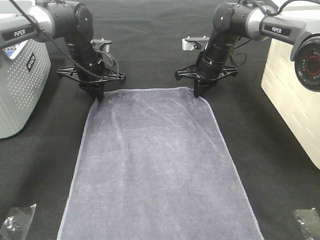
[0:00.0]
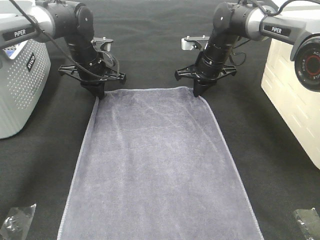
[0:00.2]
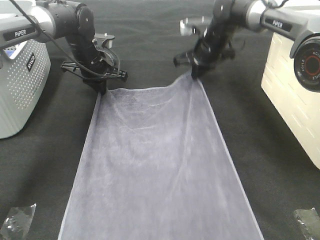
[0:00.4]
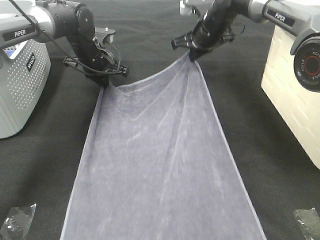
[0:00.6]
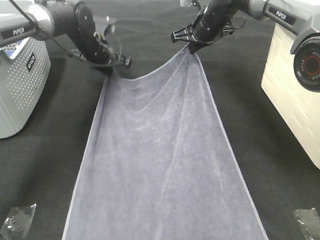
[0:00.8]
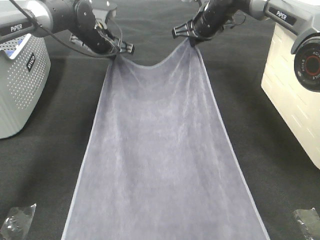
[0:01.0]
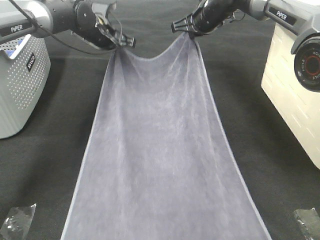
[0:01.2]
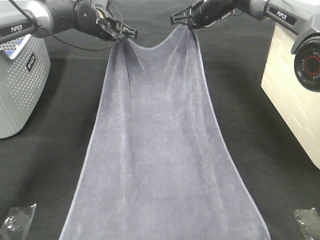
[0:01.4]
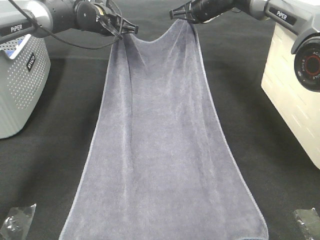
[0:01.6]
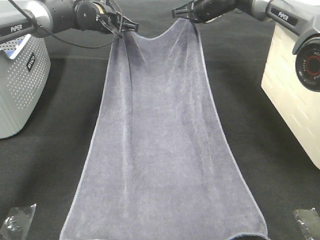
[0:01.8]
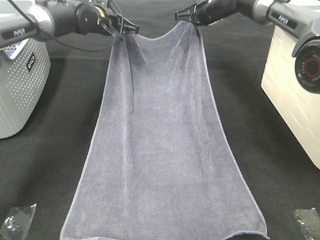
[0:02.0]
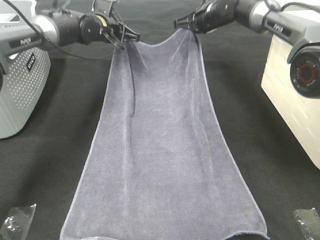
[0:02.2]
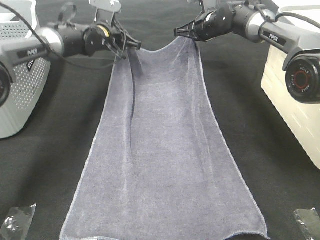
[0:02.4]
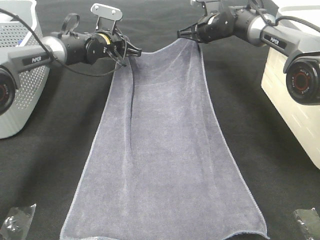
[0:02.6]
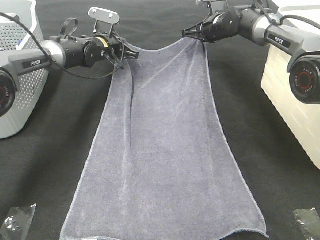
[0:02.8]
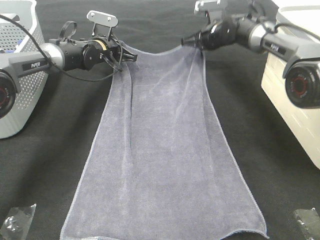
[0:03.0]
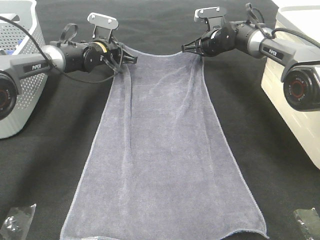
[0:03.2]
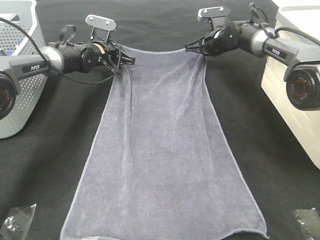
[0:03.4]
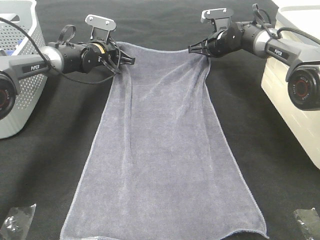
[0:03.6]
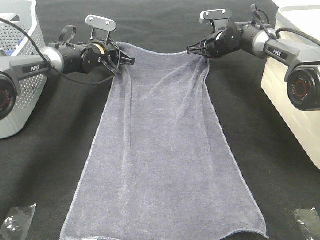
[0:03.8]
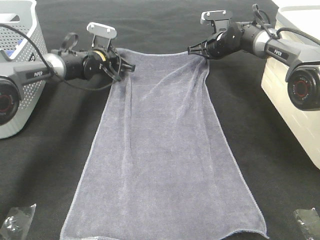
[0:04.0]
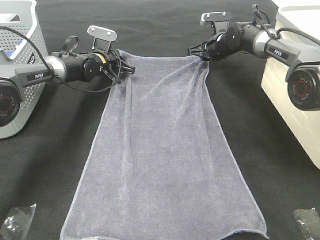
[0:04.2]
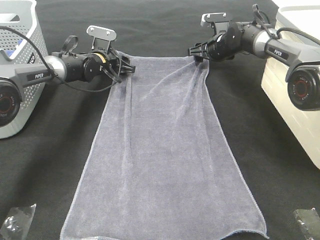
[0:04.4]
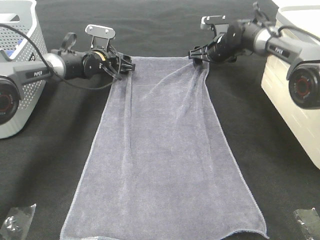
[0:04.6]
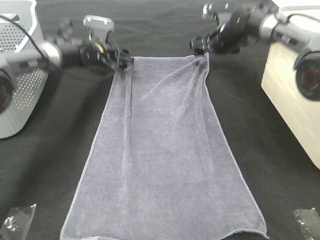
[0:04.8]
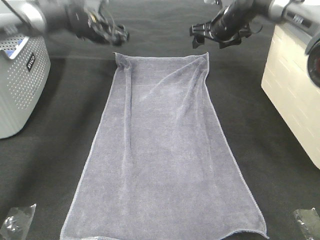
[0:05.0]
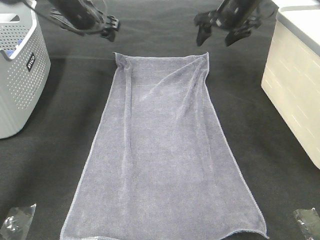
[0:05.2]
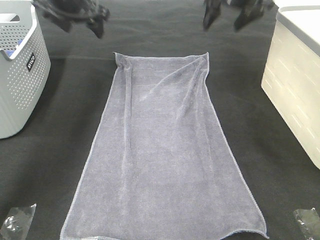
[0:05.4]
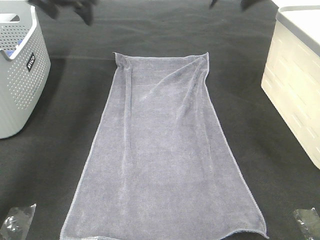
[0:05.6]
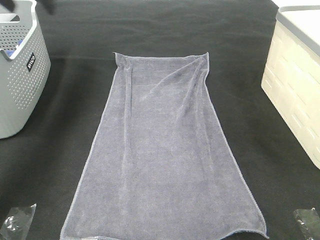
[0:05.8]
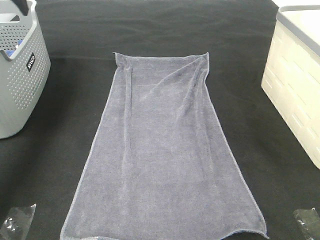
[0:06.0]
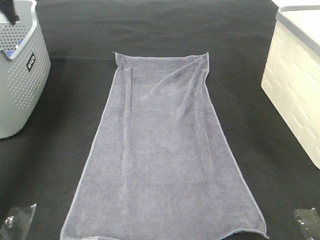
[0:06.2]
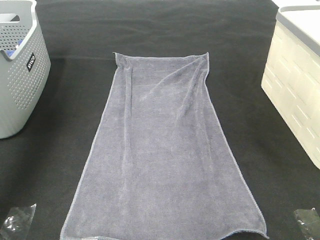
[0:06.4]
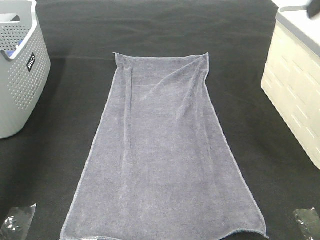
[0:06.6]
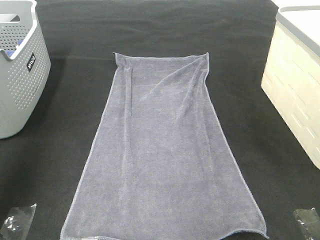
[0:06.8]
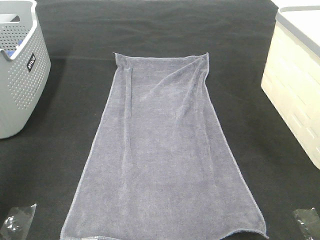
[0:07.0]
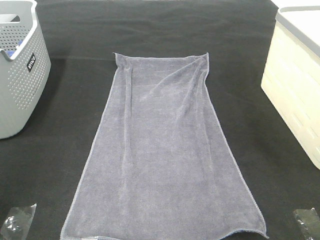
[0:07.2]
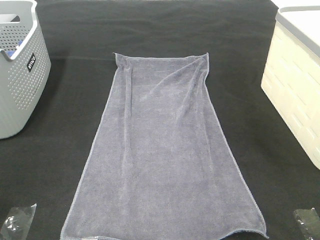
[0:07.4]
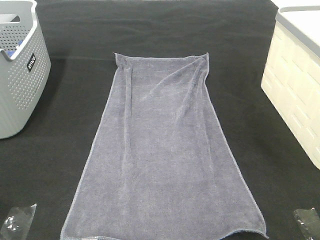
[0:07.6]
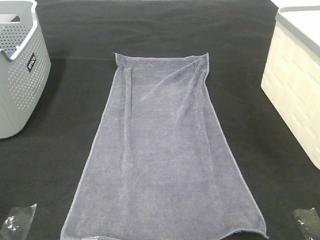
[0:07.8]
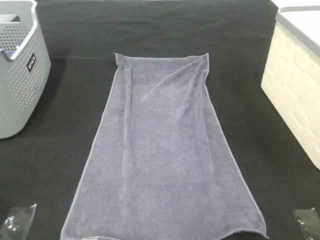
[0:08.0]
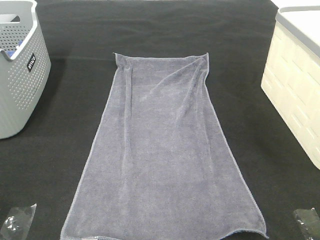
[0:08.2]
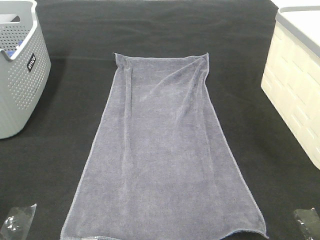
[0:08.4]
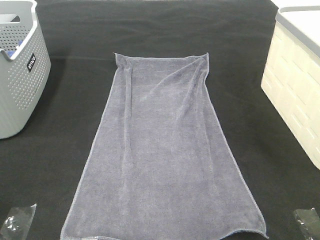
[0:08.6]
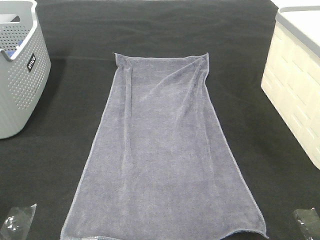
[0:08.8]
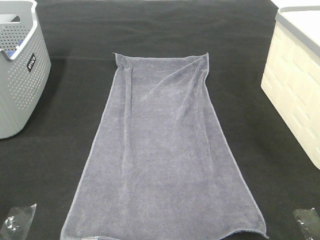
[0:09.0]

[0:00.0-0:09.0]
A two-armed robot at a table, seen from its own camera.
Task of the whole recording: Remove the towel and place it.
0.0 to 1.6 s: The grippers both shift upward and forward by about 10 cm.
1.6 to 3.0 s: Both grippers move downward, approximately 10 cm.
3.0 to 4.4 s: The right gripper opens its fingers. Meanwhile the left gripper opens.
4.4 to 6.0 s: The right gripper goes some 35 cm upward and backward. The left gripper is displaced upward, to the left and backward by roughly 35 cm.
6.0 to 7.6 s: The two grippers go some 50 cm backward.

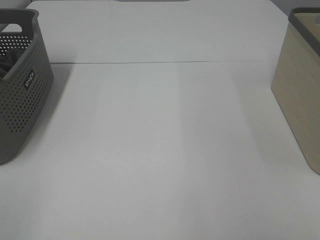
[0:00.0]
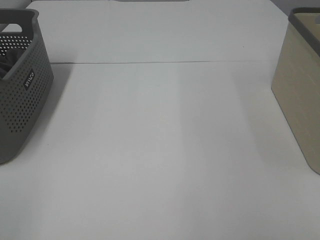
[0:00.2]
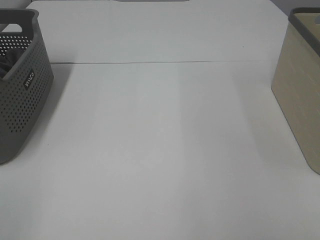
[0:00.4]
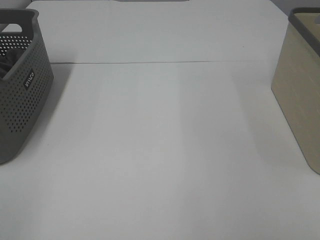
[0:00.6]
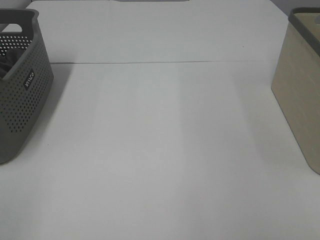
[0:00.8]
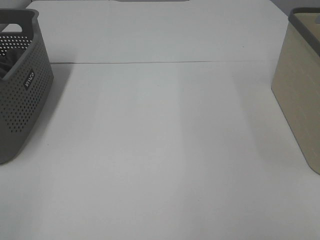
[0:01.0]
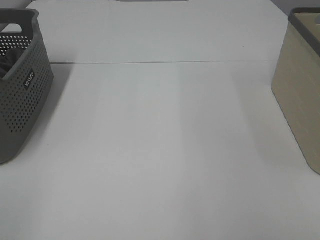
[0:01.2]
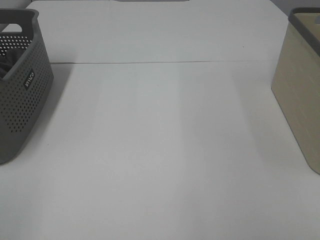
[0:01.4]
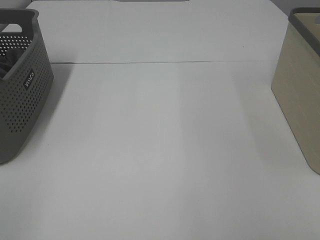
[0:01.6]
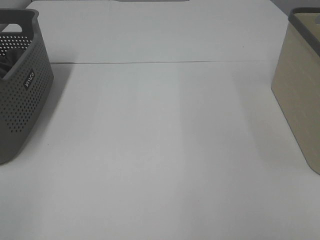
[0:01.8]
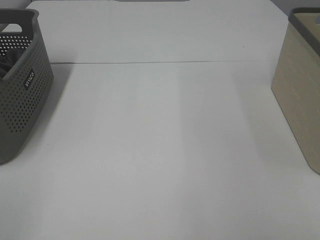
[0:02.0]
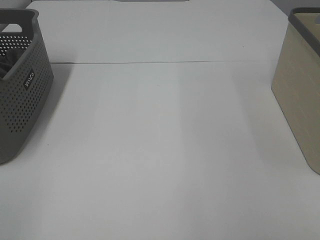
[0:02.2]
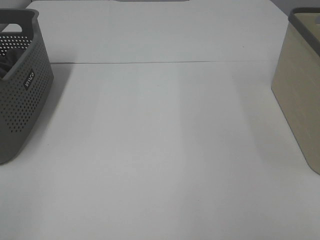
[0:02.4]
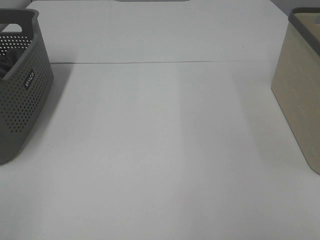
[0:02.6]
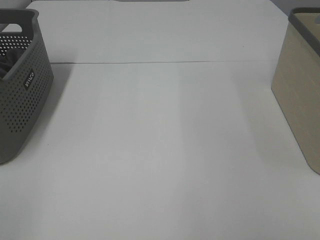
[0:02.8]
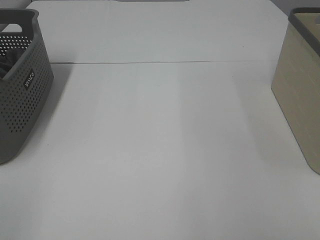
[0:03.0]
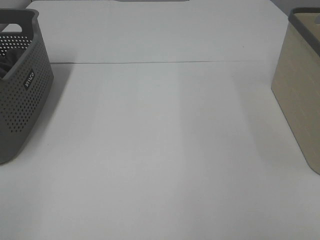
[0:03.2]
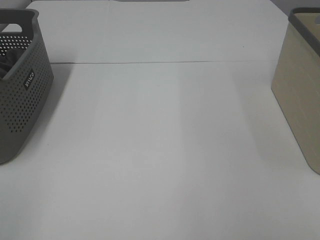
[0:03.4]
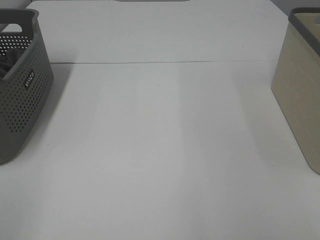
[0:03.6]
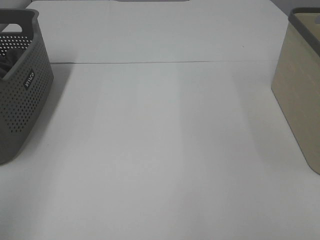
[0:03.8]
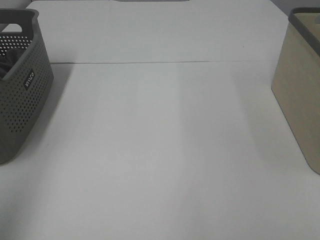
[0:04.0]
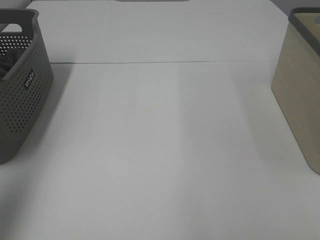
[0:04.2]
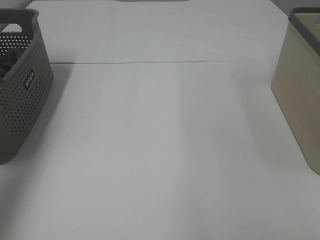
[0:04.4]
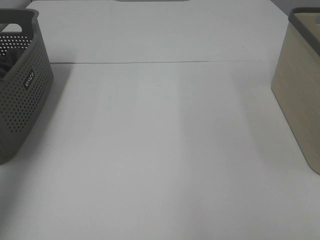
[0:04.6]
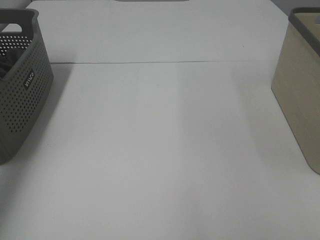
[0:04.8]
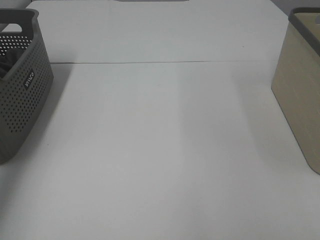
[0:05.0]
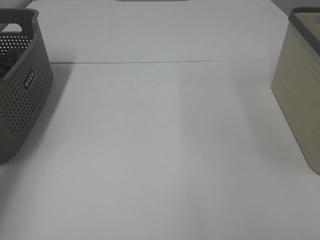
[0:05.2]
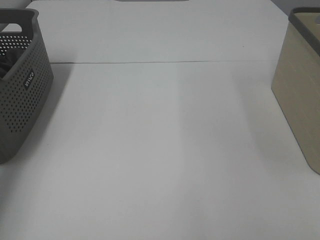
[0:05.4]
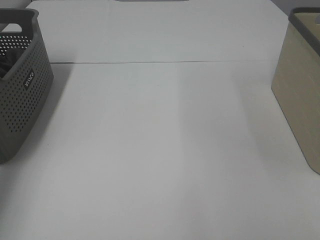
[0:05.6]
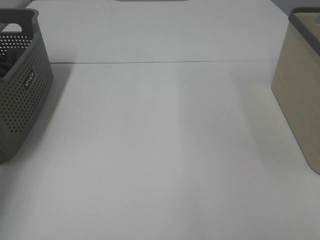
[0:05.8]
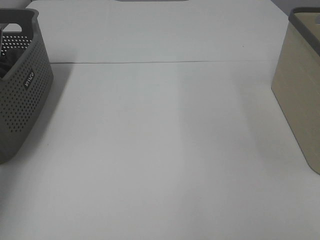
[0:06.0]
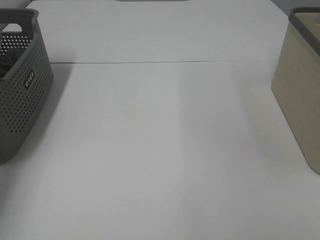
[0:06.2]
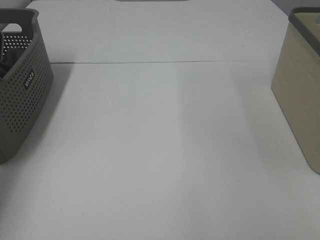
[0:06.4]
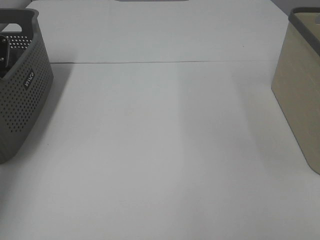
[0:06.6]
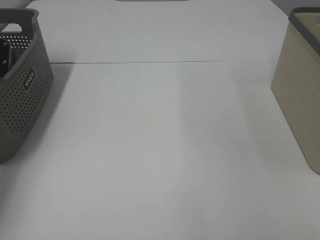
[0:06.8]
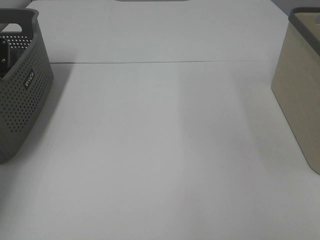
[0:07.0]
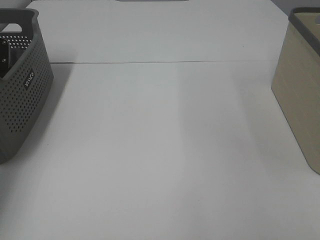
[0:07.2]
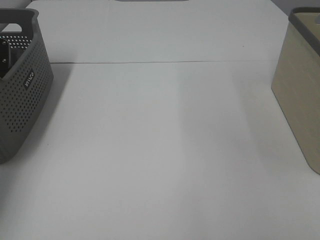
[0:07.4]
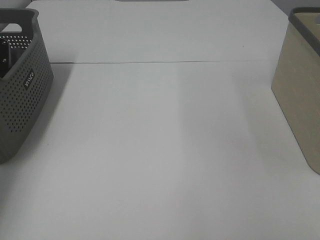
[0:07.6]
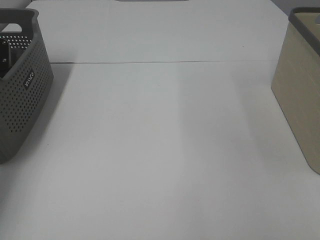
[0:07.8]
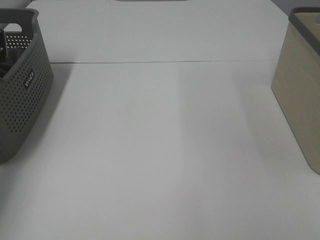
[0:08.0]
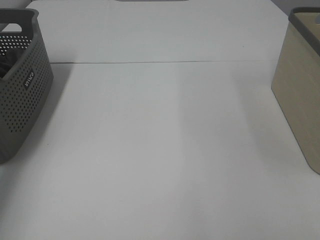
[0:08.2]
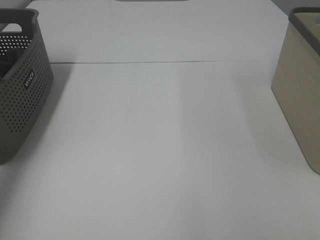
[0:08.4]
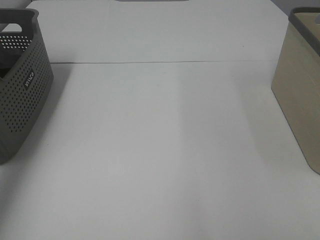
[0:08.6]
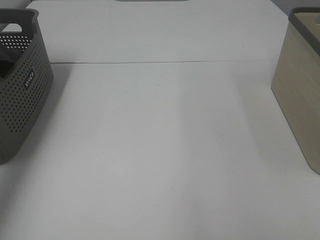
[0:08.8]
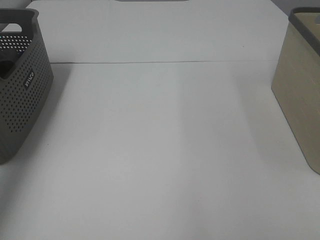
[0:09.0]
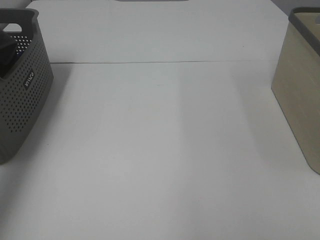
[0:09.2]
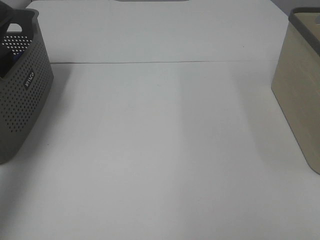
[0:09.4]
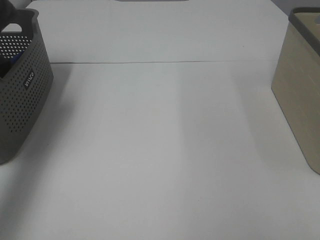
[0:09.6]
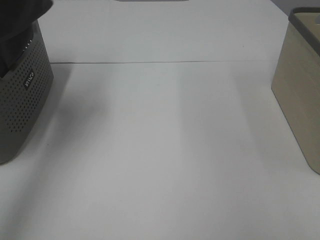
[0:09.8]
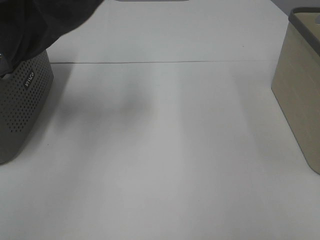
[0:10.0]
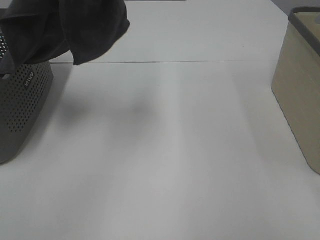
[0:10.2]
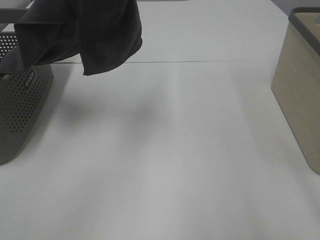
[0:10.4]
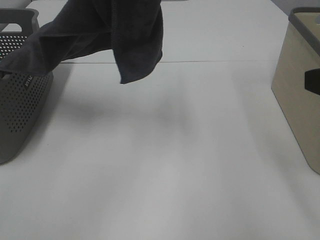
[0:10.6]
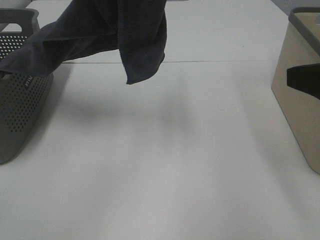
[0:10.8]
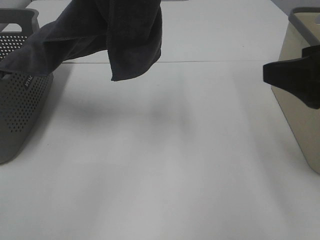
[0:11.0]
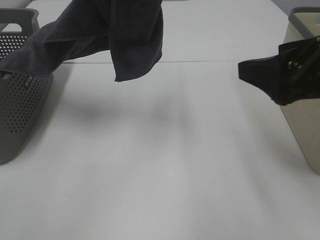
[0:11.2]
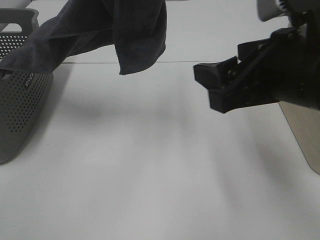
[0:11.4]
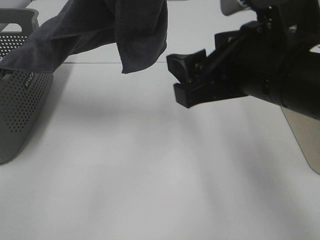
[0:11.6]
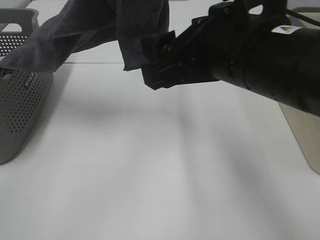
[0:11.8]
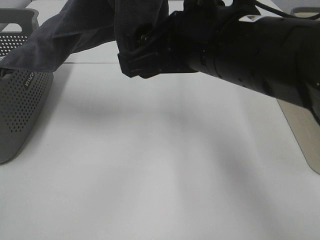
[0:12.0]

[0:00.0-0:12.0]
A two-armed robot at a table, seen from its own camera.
Task of the whole recording: Remove the towel and place it.
0.0 to 3.0 s: Both grippers stay about where they are.
3.0 to 4.4 s: The left gripper heads forward and upward, covering about 25 cm.
4.4 to 6.0 s: The left gripper shifts about 30 cm downward and forward.
9.0 to 10.4 s: The right gripper goes some 10 cm forward. The left gripper goes roughly 20 cm to the right.
10.4 to 12.0 s: The right gripper is displaced to the left and forward by some 20 cm.

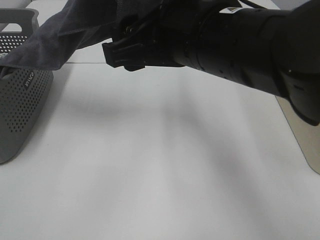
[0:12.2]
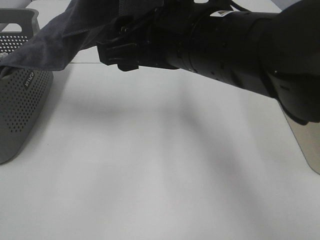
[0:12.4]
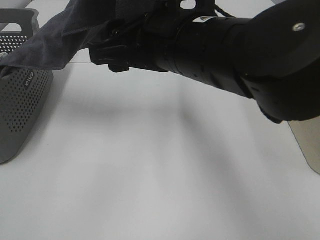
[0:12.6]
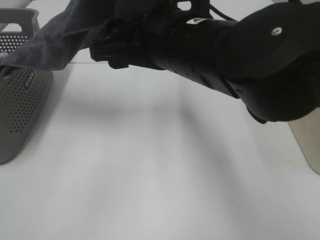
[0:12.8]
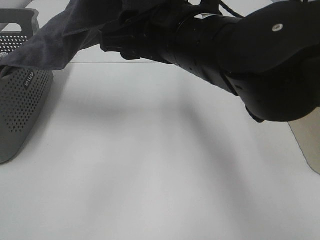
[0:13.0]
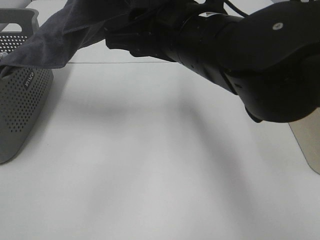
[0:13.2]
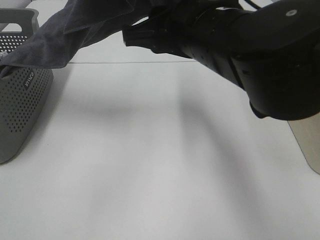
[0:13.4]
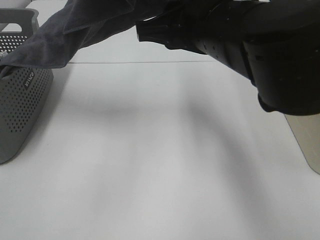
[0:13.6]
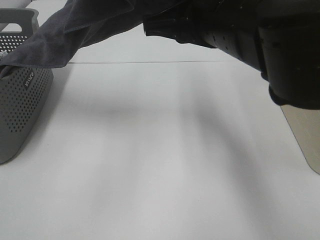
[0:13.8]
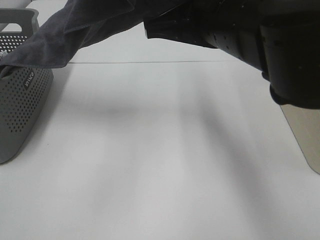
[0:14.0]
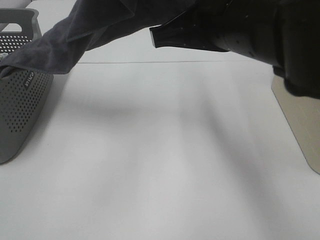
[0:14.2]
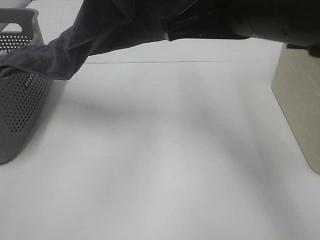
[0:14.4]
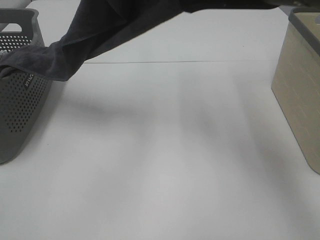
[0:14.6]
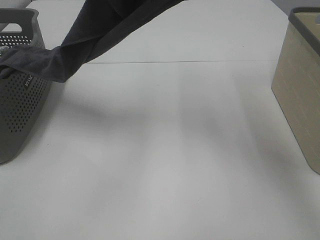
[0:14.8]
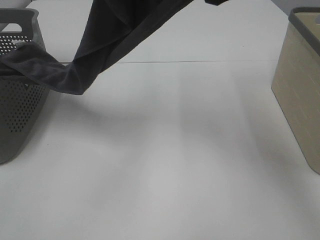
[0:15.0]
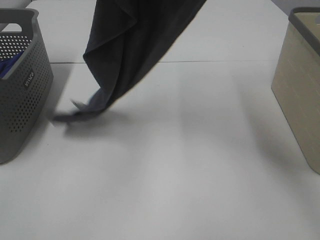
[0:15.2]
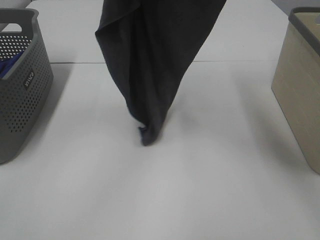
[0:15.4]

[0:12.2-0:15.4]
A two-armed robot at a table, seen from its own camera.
Task of the whole recording: Remove the towel and place it.
12.2 to 13.8 s: The right gripper closes up.
13.8 to 15.4 s: The right gripper moves upward and to the right, some 15 cm, and closes its fingers.
